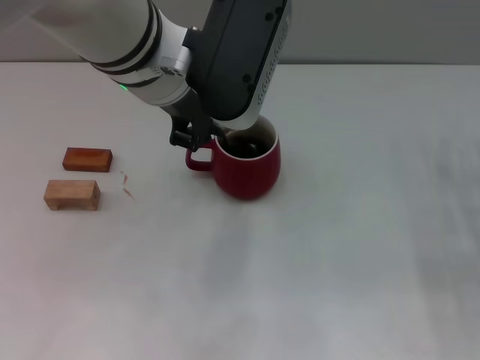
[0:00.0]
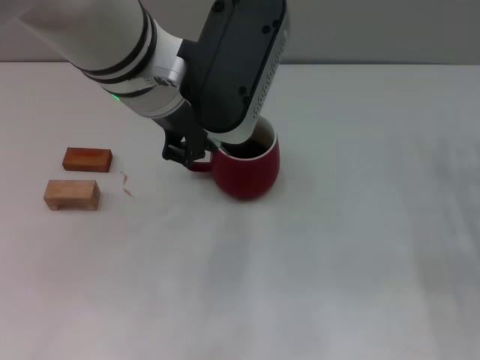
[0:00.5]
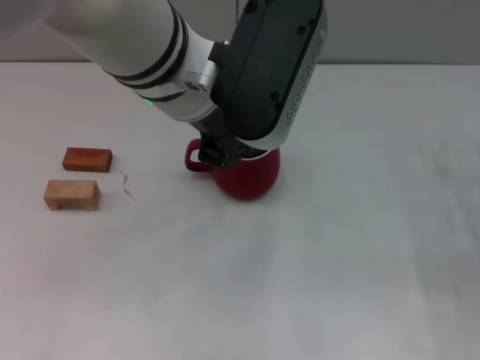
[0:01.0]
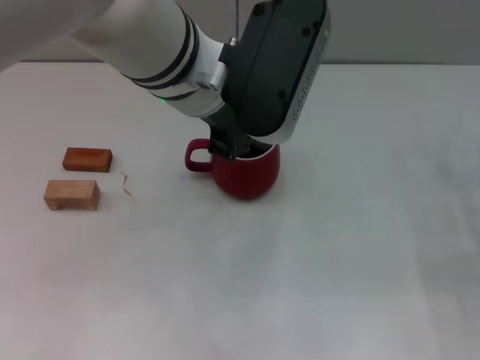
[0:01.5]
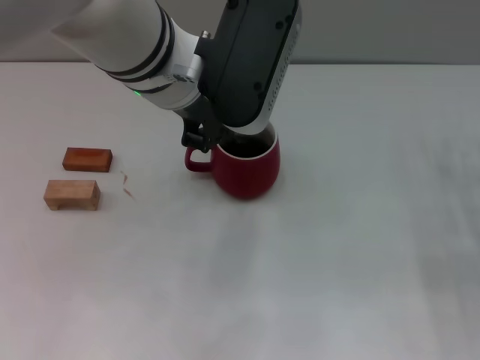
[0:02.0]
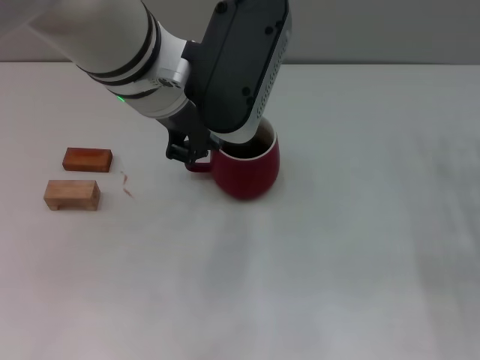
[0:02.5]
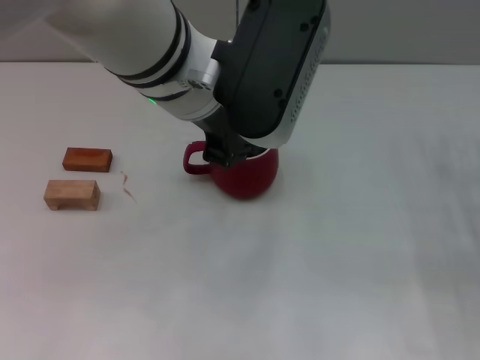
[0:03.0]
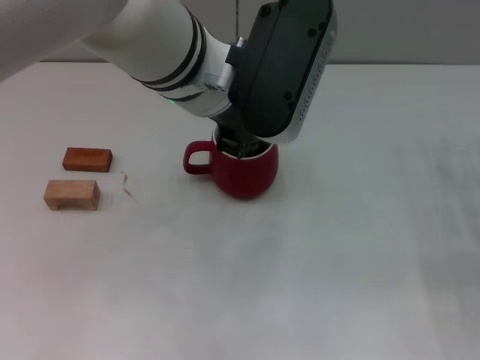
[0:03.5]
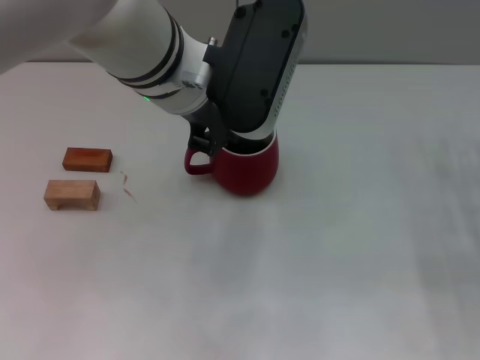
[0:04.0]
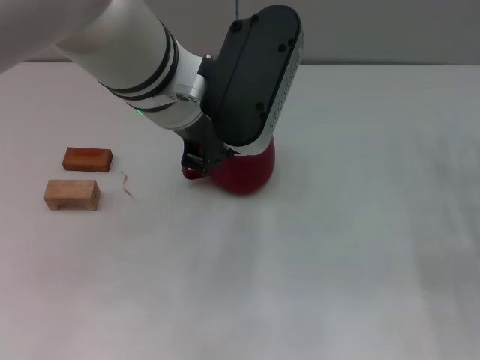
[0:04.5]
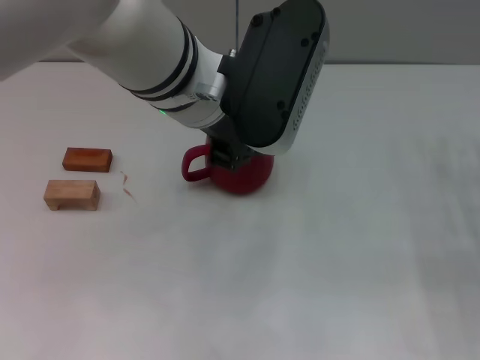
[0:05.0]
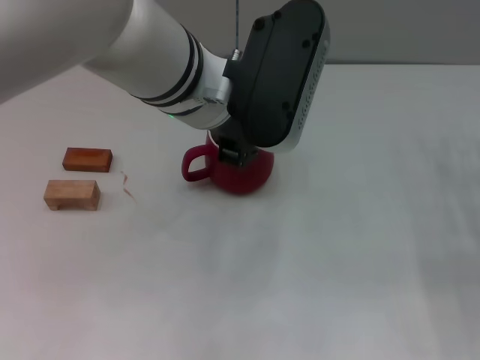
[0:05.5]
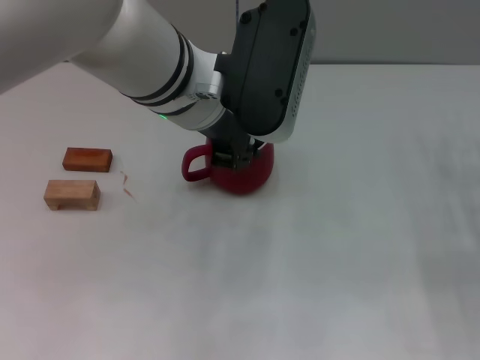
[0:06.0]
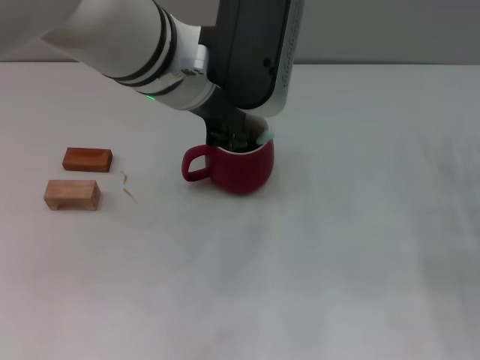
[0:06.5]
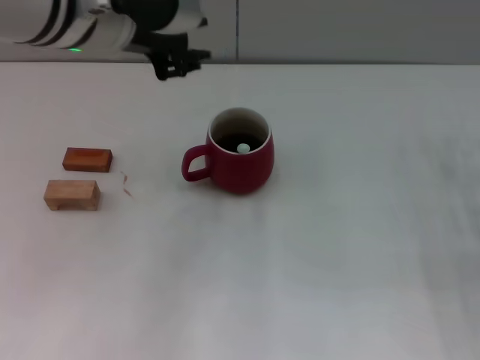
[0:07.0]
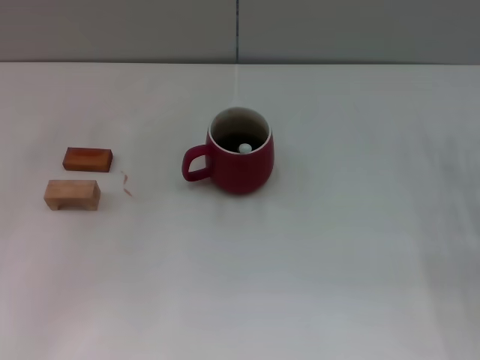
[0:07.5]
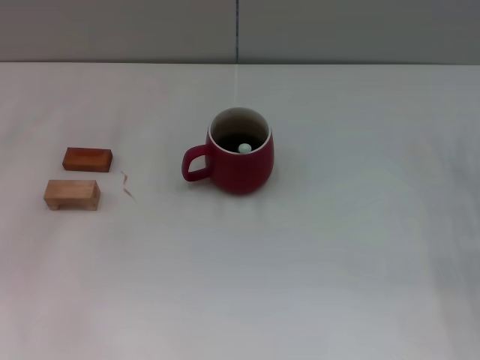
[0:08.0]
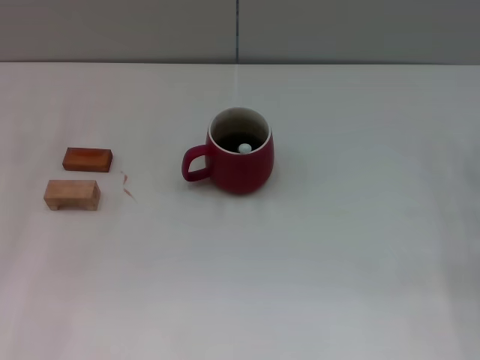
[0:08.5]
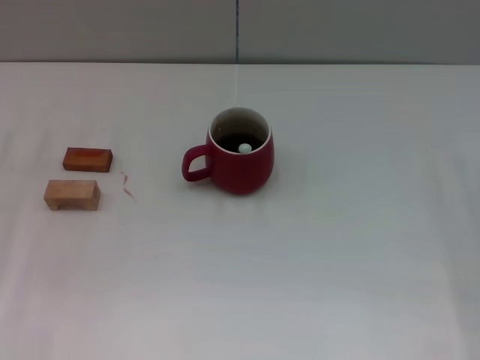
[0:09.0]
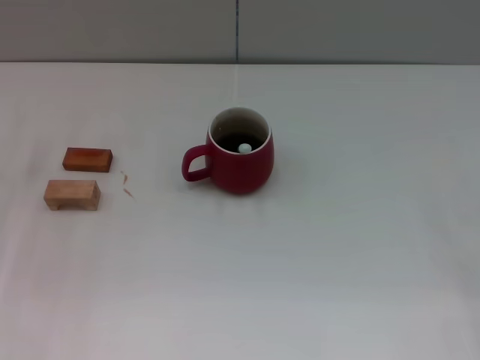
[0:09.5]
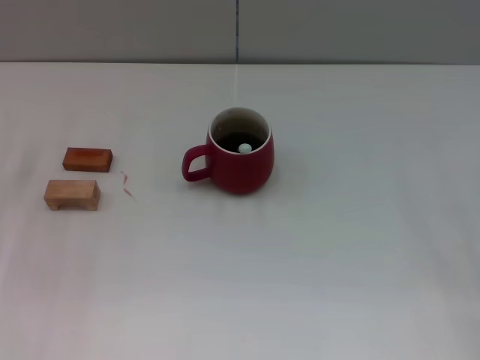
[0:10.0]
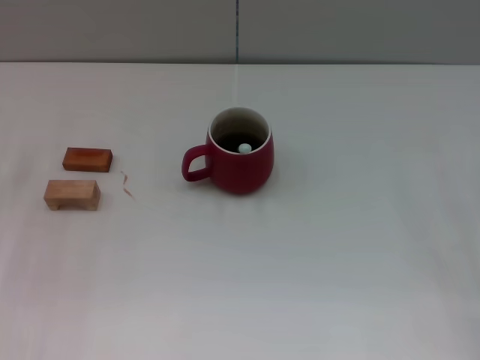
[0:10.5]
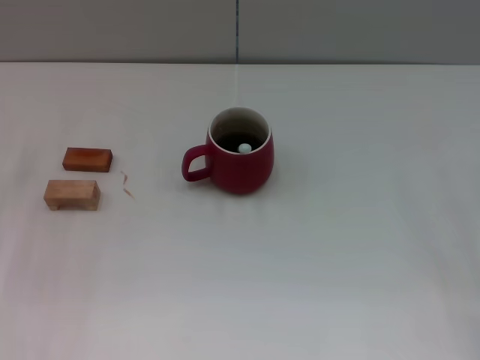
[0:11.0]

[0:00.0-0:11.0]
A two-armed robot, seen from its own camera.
Task of the whole recording: Move the red cup to the center, lift the blue spoon, stir it three times in the cup, and put the spoon into the cup.
Step, 0:00.0 to 0:06.5: Stir the coffee in the cup with the left gripper.
0:00.0 to 0:05.5: The grippers stay close to where they were, moving slightly.
0:05.5 to 0:07.5: The left gripper heads to the left, covering some 20 cm.
